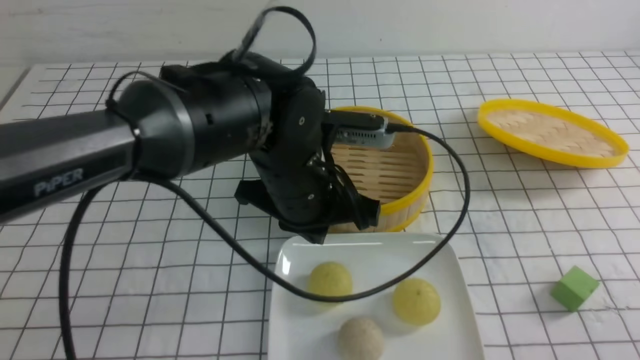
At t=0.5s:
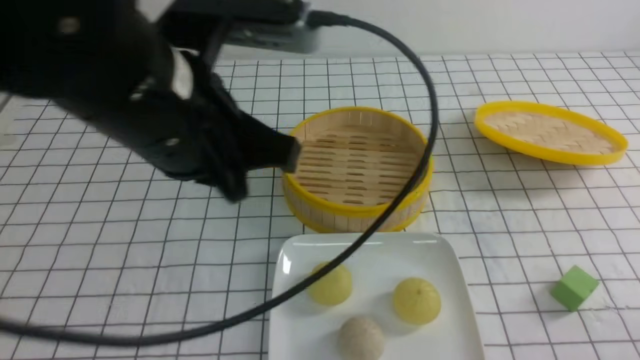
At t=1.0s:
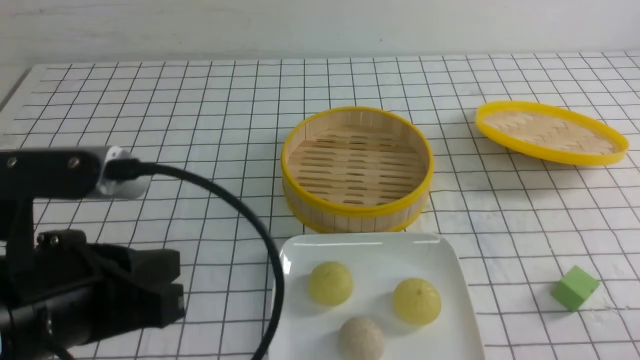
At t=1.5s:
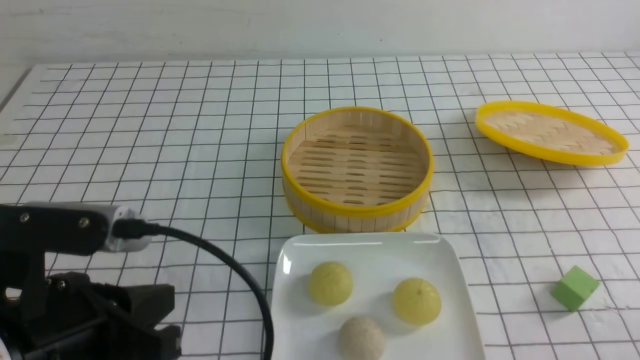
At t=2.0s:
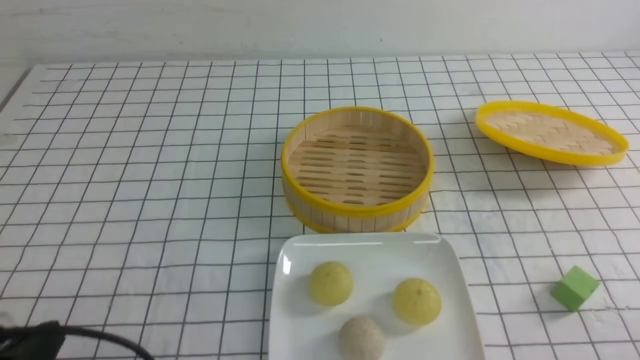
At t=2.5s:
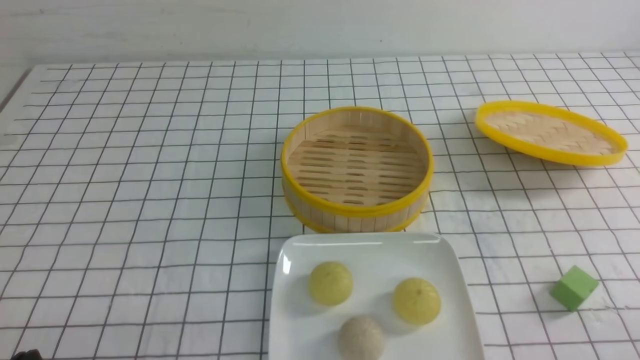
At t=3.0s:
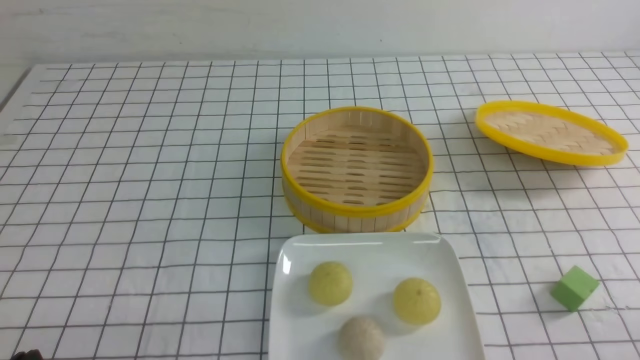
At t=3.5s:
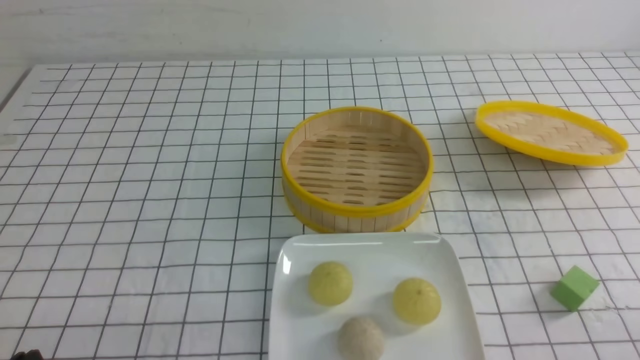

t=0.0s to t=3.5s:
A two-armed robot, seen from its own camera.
t=0.0s to t=2.0s: The left gripper moves to the left and backward, some 30 cm.
t=2.0s to t=3.5s: There are only small adjustments of the grippers.
